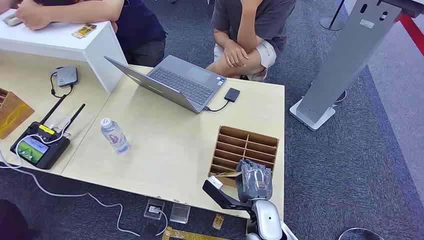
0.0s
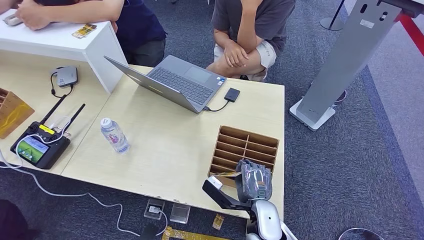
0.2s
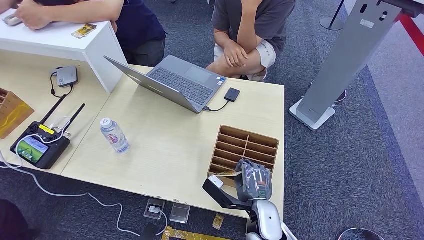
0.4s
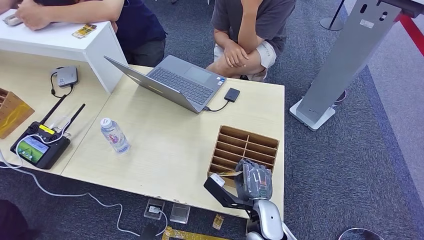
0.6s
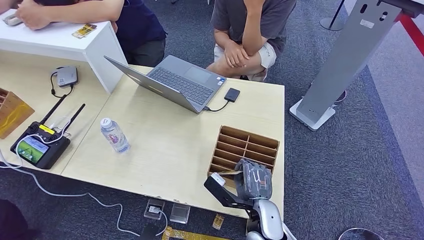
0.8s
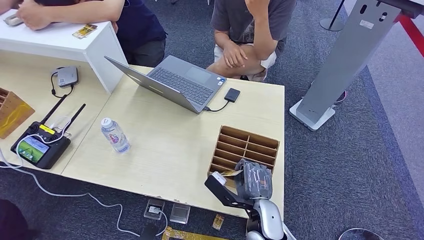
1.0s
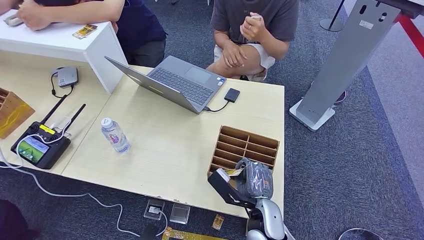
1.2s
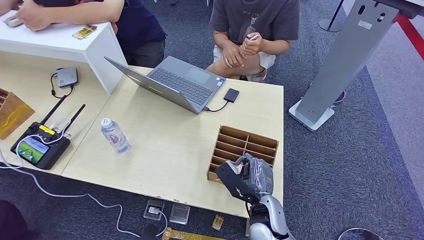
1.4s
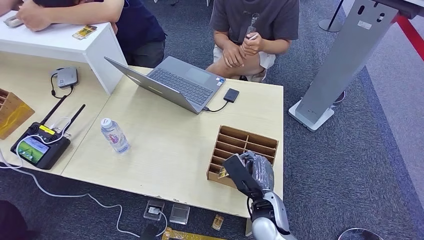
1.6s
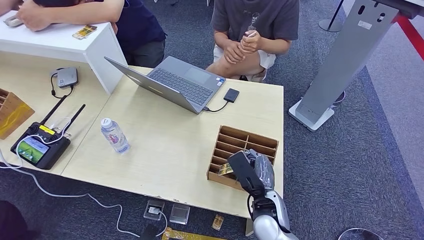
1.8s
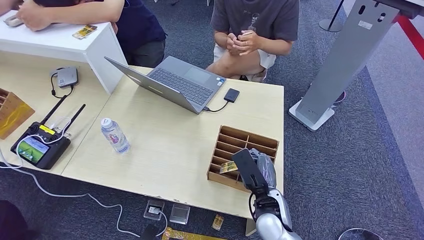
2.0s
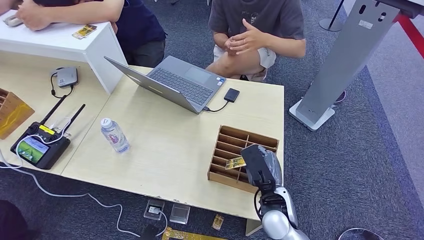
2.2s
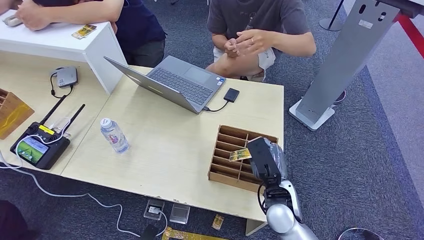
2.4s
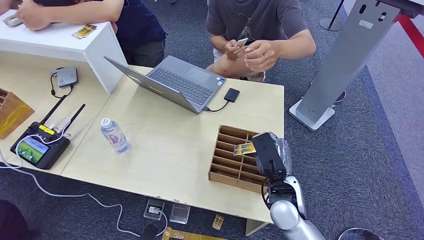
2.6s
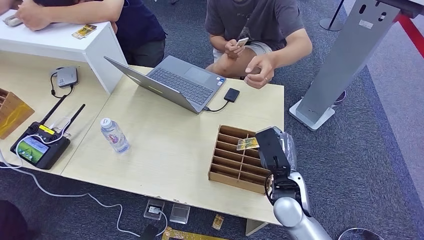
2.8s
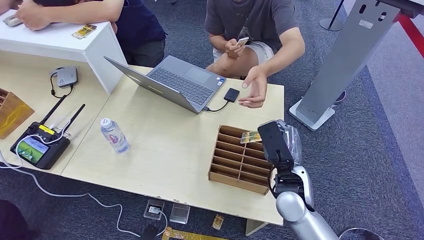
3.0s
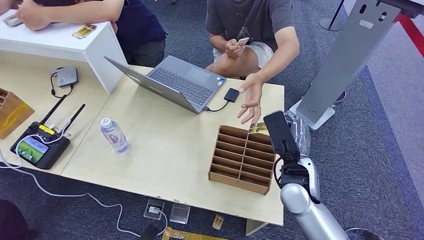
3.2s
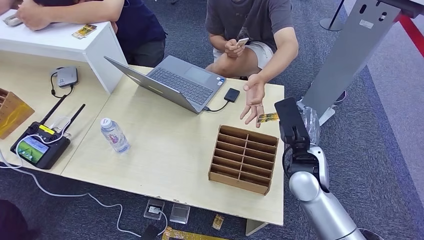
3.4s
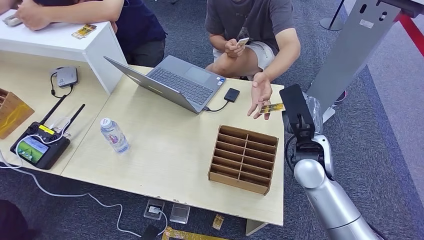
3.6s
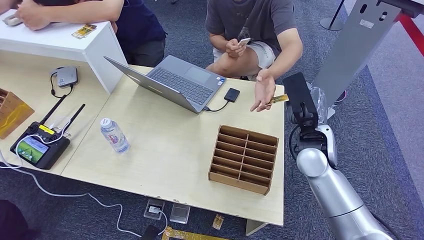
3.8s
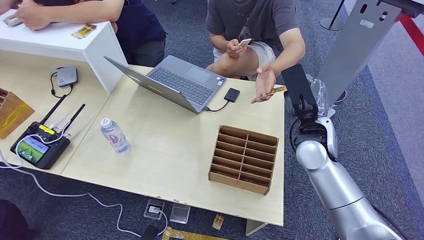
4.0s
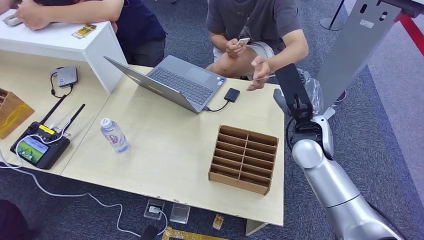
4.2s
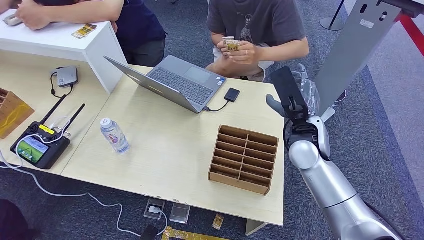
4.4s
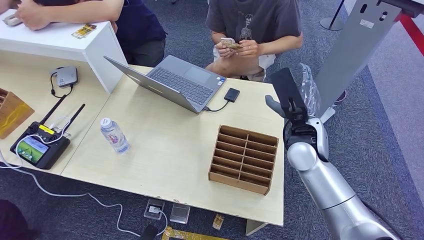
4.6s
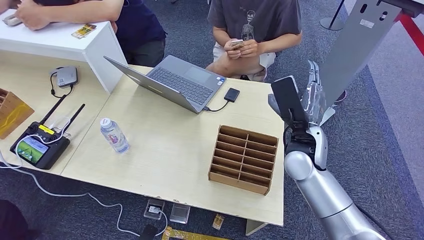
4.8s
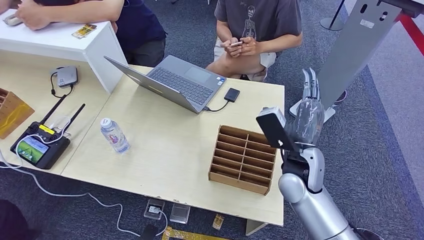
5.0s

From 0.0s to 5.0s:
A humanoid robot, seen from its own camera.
Task of the whole recording: Pick up the card and hand it over to the target person.
Step, from 0.0s to 1.8s: Pick up the key card from the card box.
Step, from 2.6s to 5.0s: Hand the key card to the target.
From 1.6s to 3.4s: The right hand travels upward, forward and to the right by some 20 cm.
From 3.4s to 5.0s: The right hand travels backward by about 10 cm.
